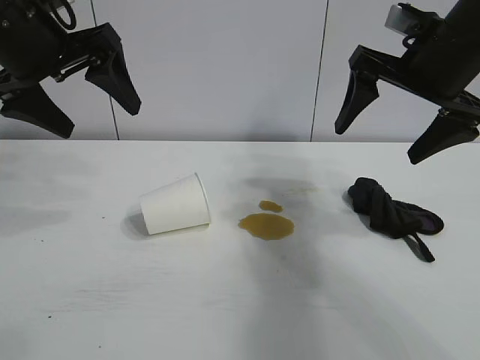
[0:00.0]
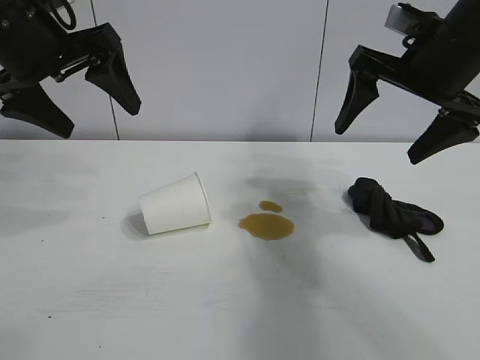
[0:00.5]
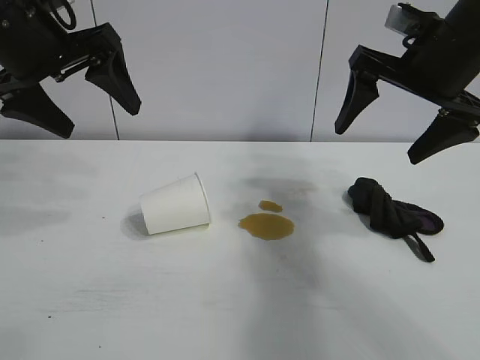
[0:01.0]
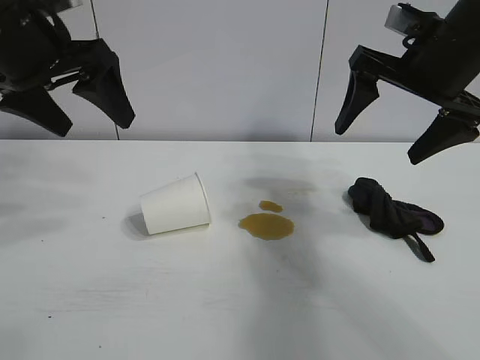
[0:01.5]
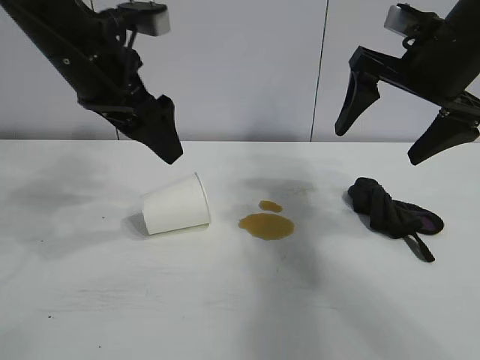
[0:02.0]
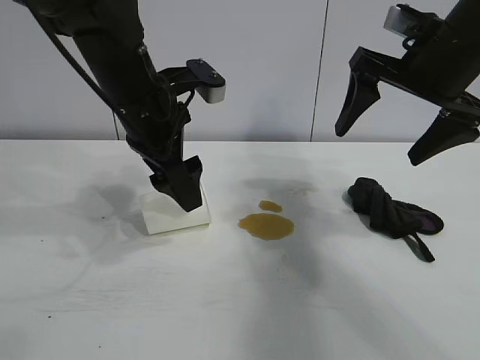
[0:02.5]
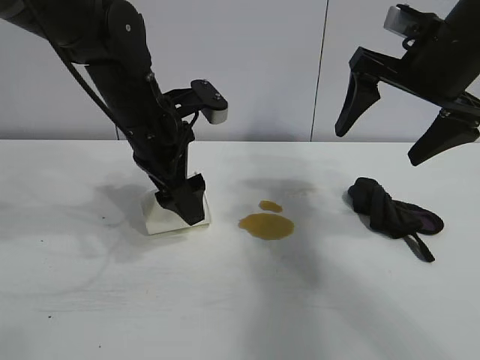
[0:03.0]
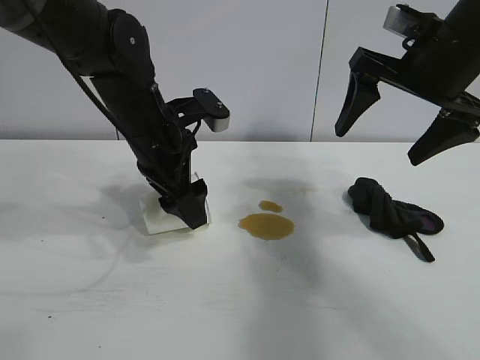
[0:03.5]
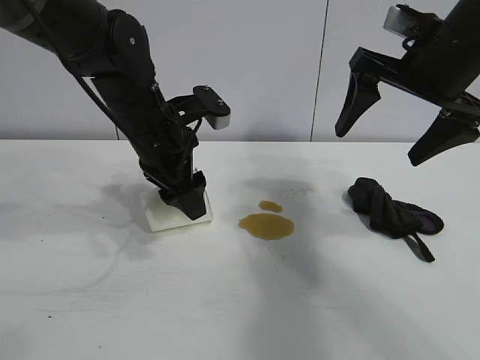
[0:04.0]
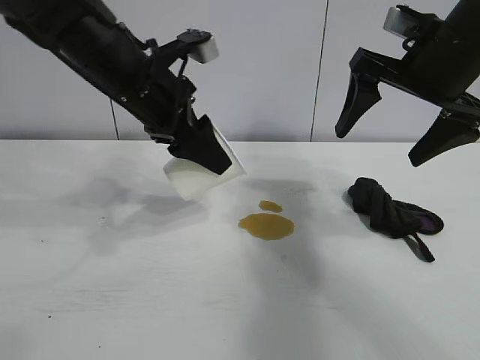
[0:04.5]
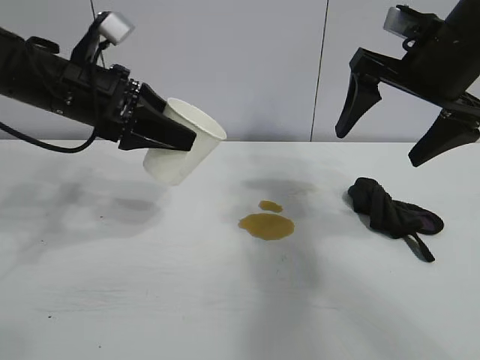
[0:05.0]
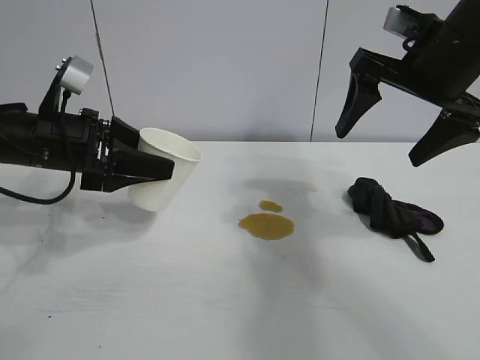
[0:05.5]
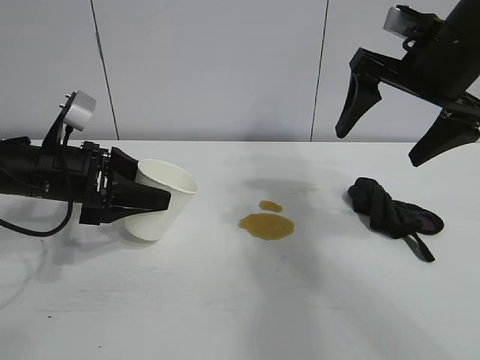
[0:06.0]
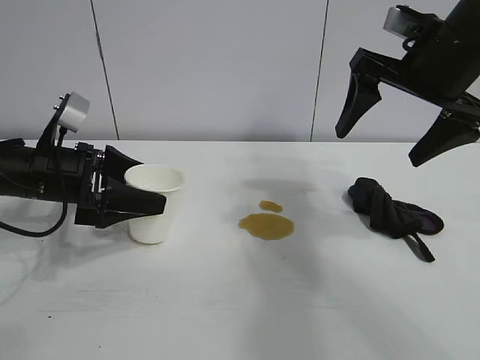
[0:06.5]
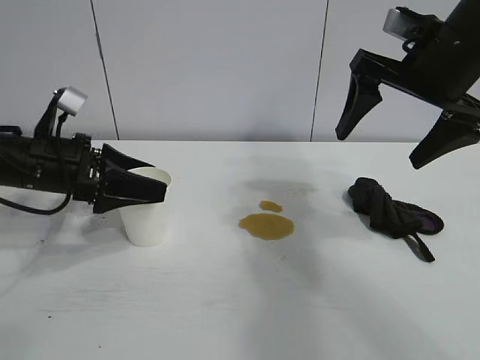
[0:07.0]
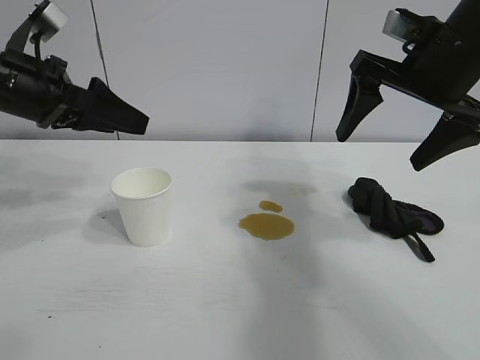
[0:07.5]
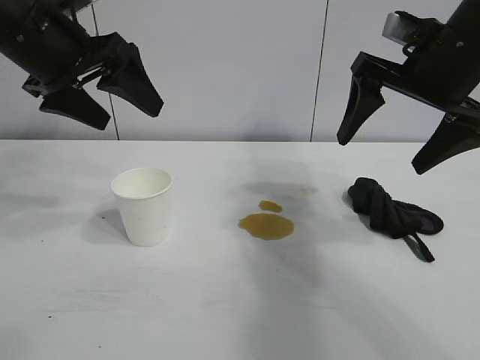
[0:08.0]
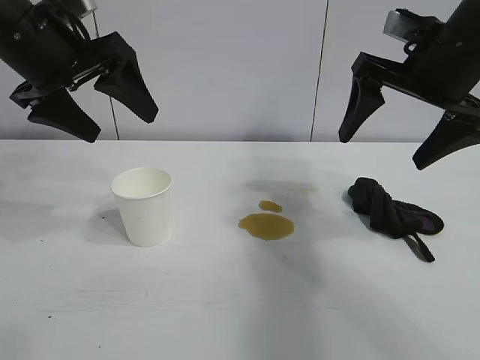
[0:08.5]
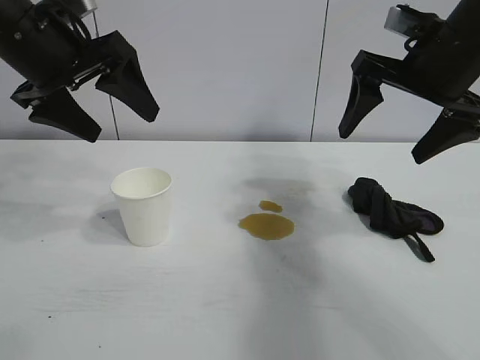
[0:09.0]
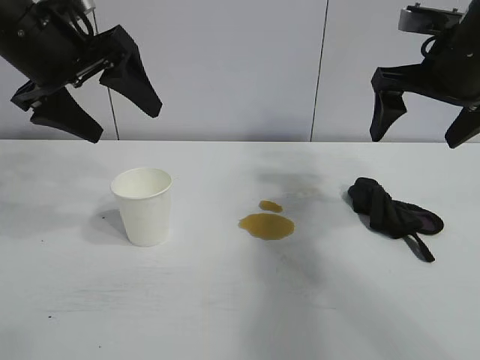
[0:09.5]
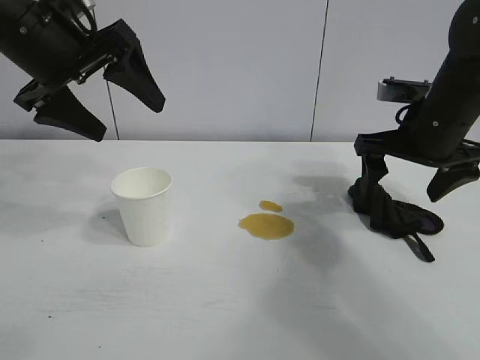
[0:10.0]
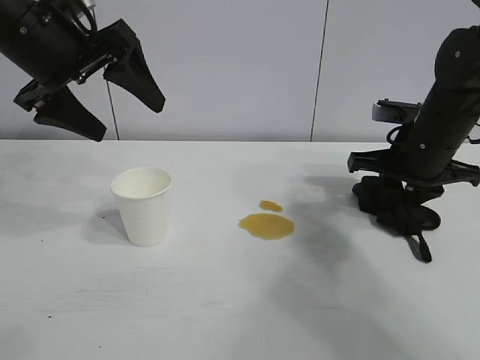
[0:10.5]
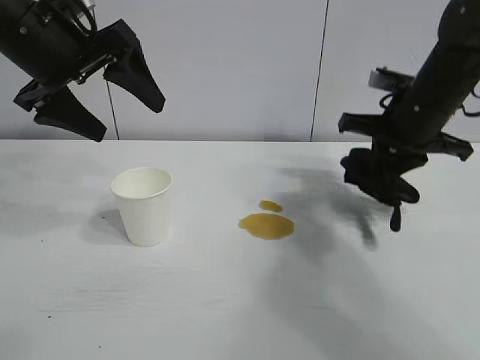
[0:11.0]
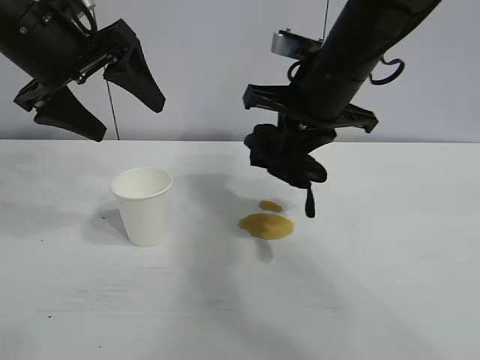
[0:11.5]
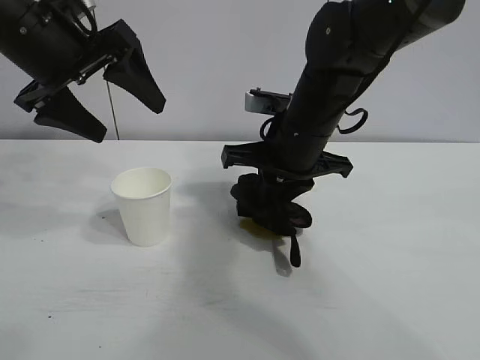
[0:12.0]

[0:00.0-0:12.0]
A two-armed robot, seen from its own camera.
Task of the whole recording: the left gripper pick up the fallen cup and place it upright, the right gripper grasp the black rag and wipe the stain on the table, the right gripper put the black rag back in its original position.
Step, 0:01.5 to 0:03.5: Grasp the paper cup with left gripper.
Step, 0:04.0 to 0:06.5: Stand the paper cup upright with left gripper.
Step, 0:07.0 to 0:10.5: Grasp the rag with right gripper.

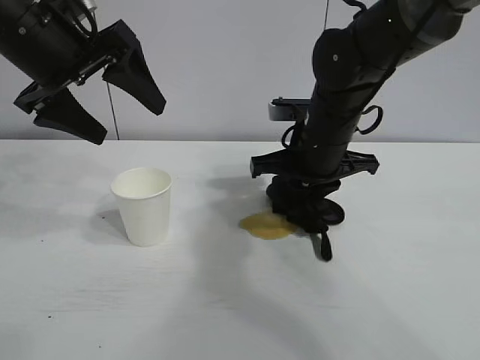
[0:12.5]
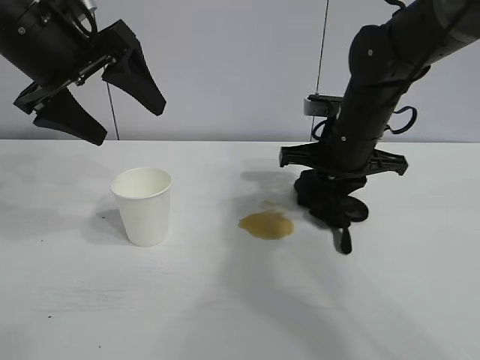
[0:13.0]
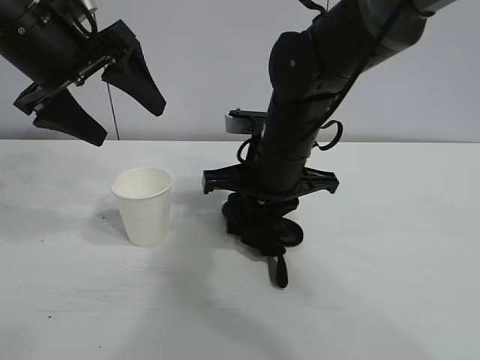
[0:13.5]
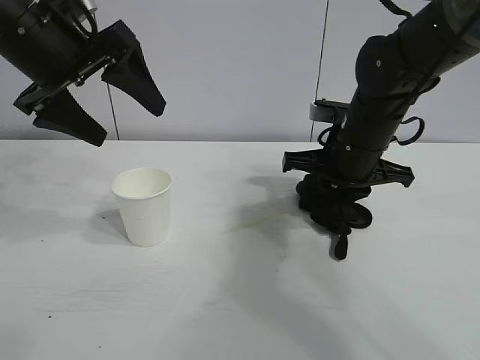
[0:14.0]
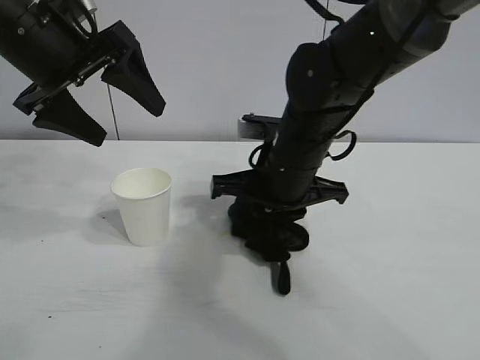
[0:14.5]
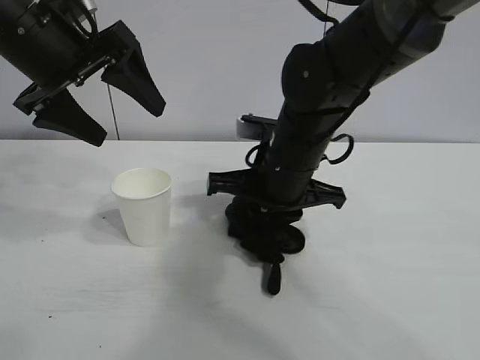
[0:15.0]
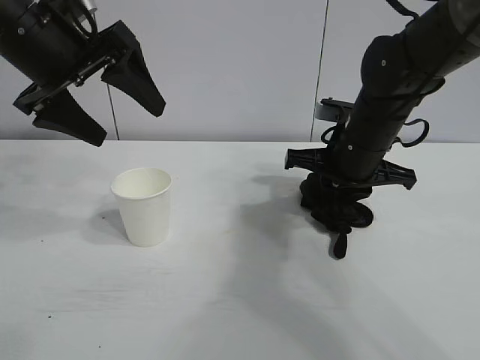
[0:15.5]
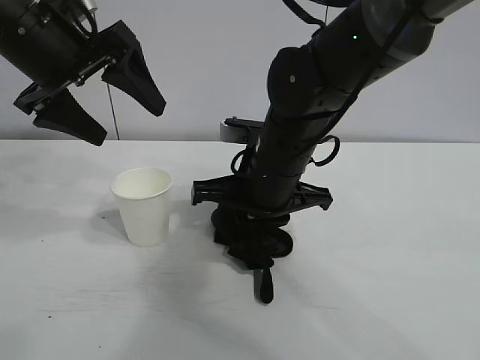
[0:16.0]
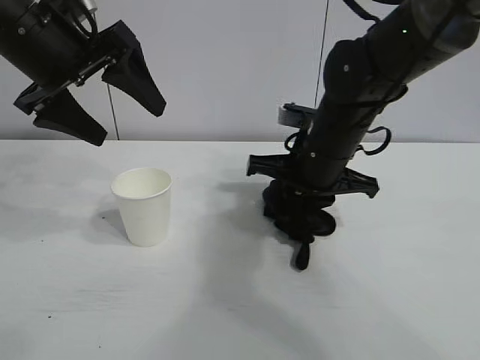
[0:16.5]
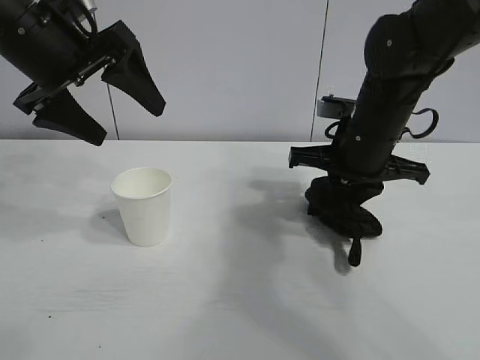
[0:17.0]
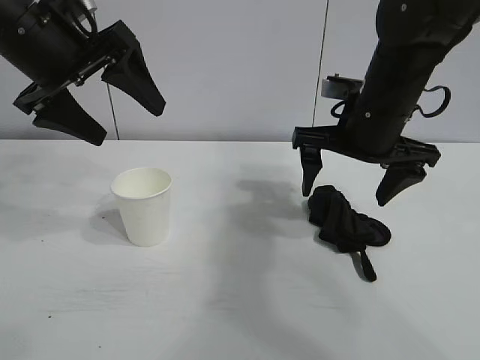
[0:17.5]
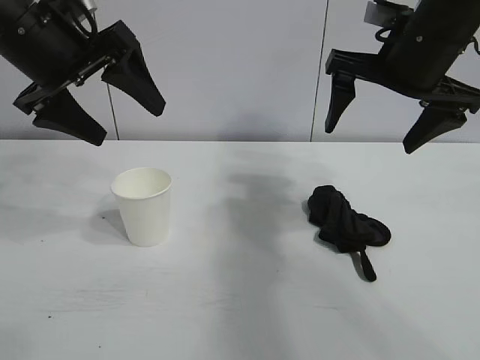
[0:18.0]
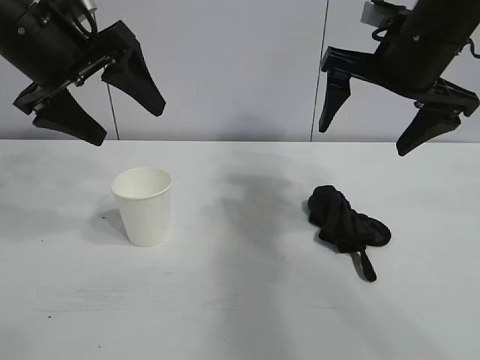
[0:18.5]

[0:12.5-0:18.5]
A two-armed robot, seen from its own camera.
Task of the whole recording: the left gripper pick up the fallen cup and place it upright, the right gripper grasp the black rag and wipe the stain on the table, the right gripper put the black rag back in its original position.
Step, 0:12.5 to 0:16.5: Wipe the stains off the table with the rag with right gripper.
